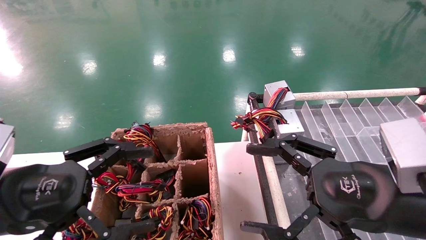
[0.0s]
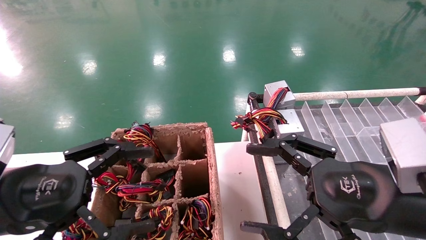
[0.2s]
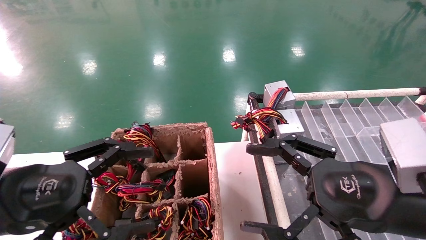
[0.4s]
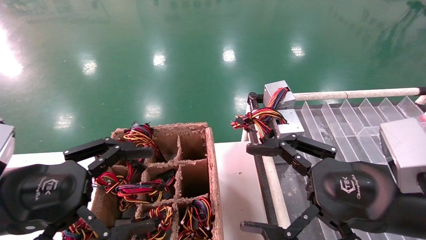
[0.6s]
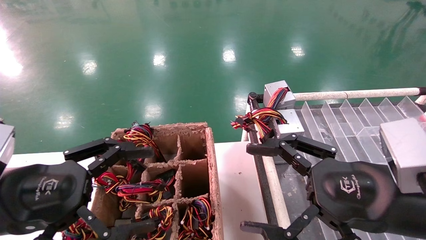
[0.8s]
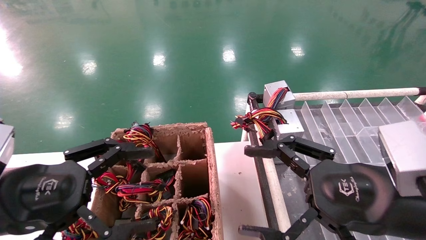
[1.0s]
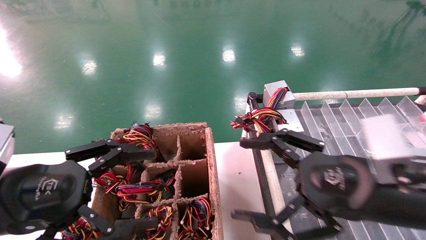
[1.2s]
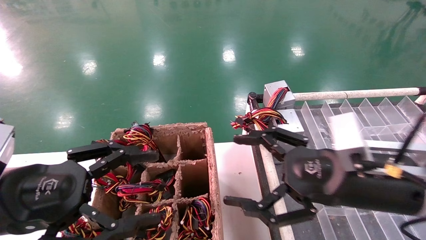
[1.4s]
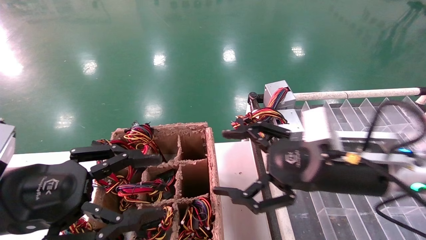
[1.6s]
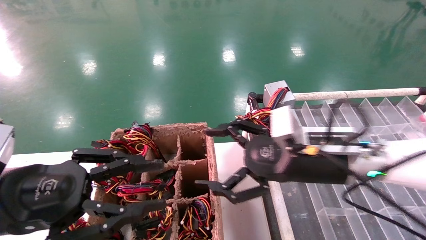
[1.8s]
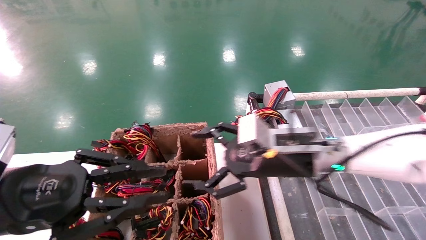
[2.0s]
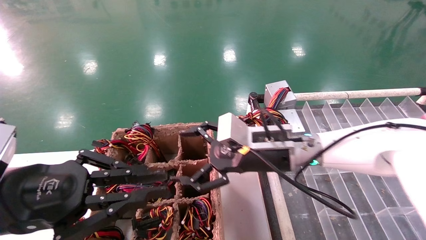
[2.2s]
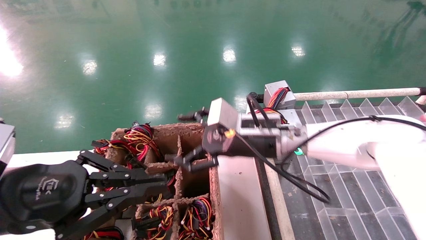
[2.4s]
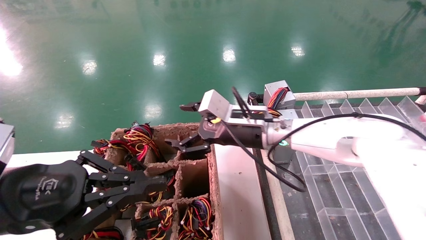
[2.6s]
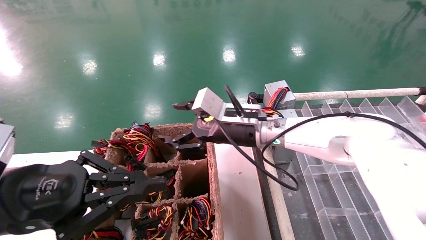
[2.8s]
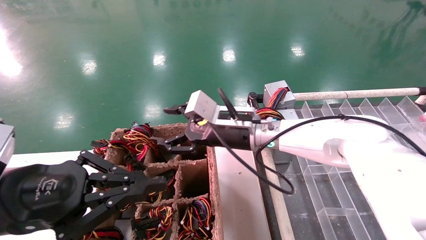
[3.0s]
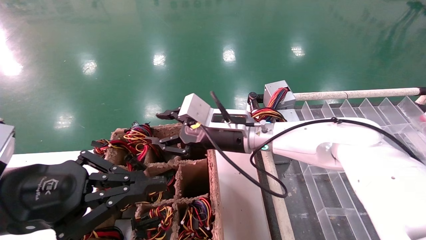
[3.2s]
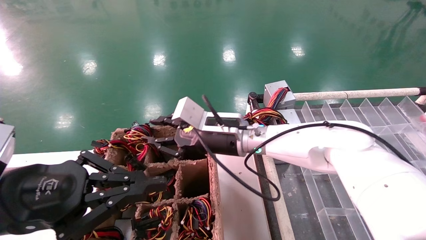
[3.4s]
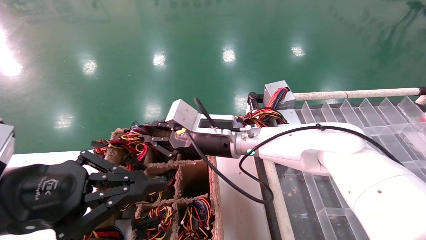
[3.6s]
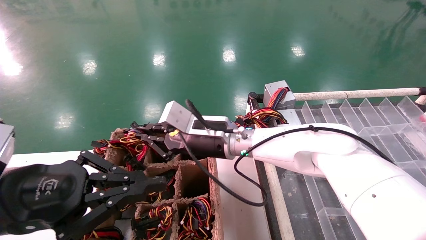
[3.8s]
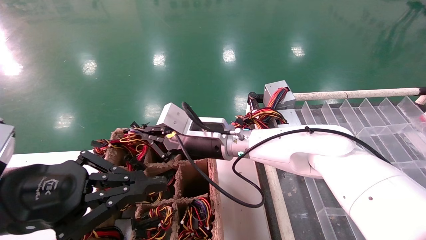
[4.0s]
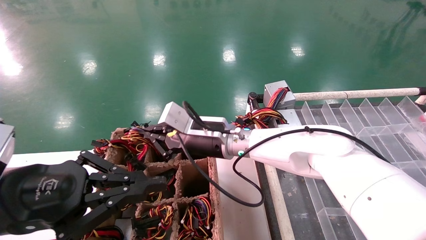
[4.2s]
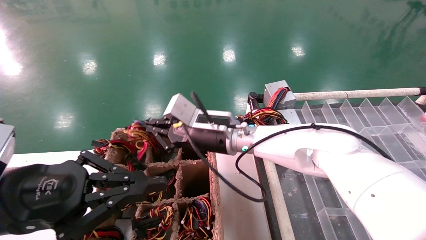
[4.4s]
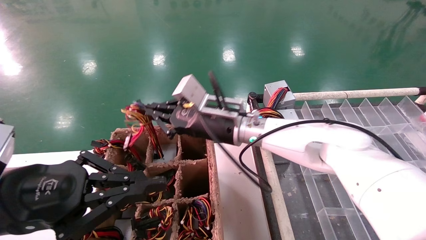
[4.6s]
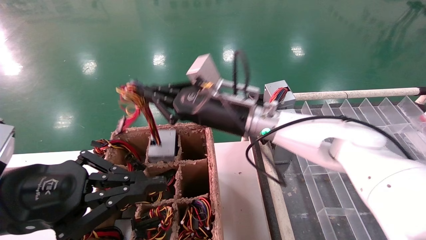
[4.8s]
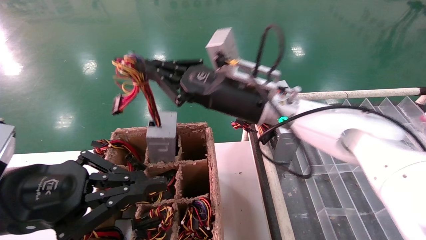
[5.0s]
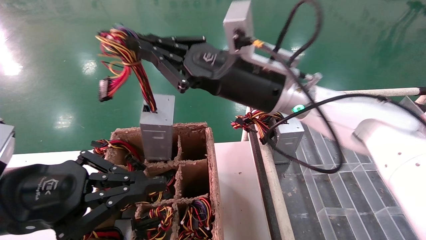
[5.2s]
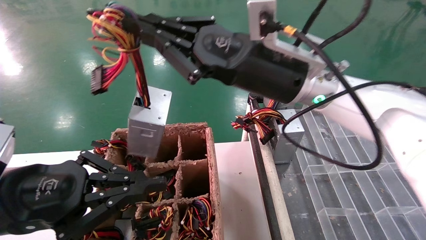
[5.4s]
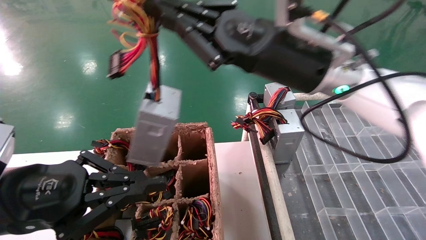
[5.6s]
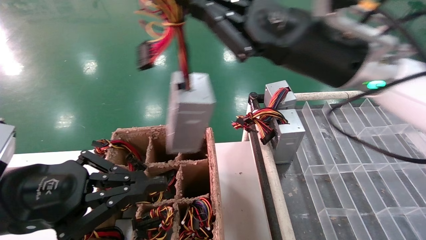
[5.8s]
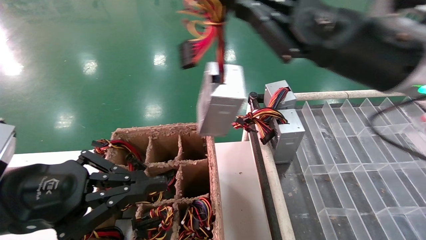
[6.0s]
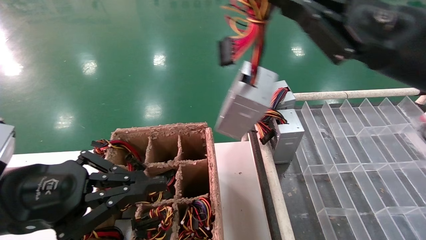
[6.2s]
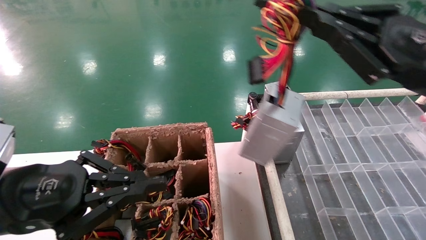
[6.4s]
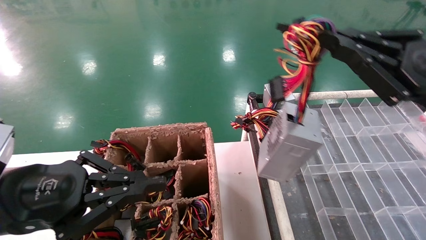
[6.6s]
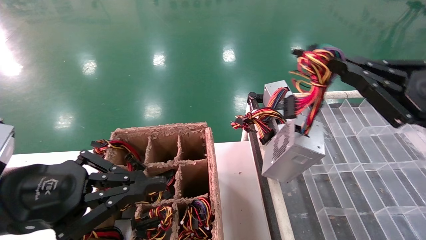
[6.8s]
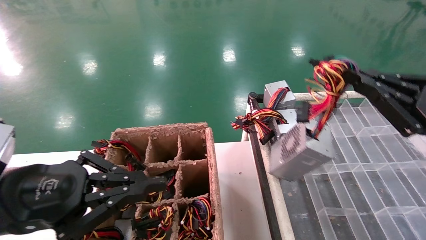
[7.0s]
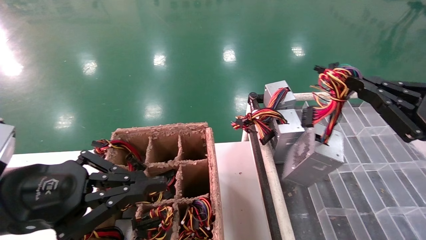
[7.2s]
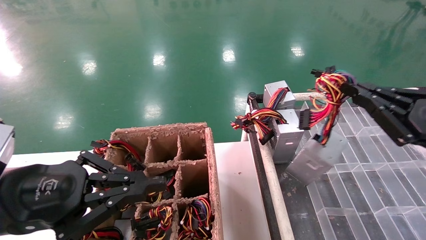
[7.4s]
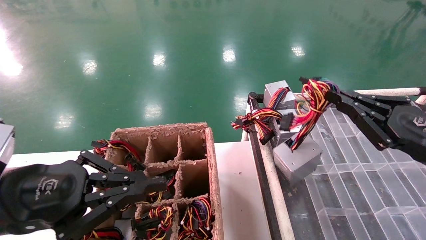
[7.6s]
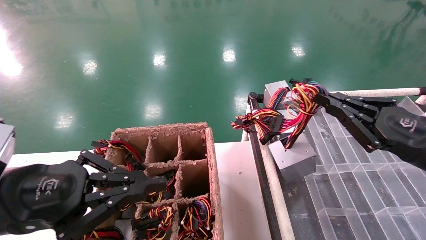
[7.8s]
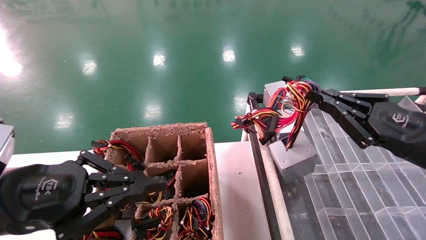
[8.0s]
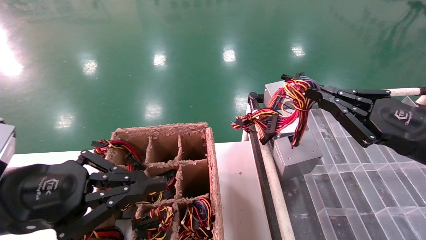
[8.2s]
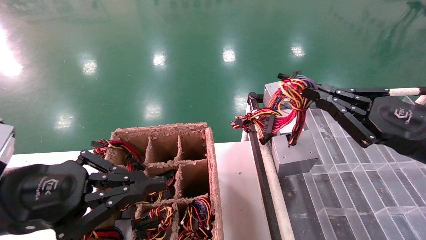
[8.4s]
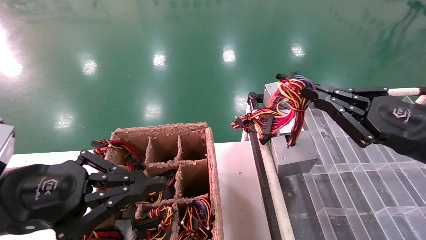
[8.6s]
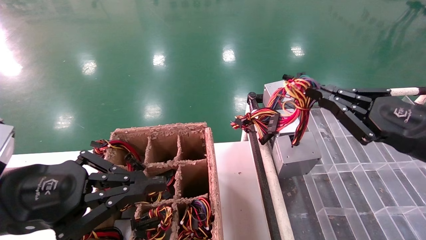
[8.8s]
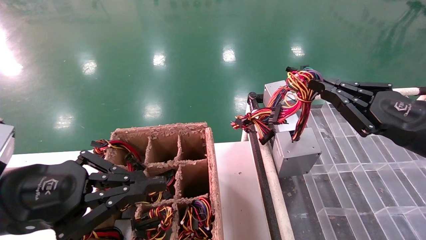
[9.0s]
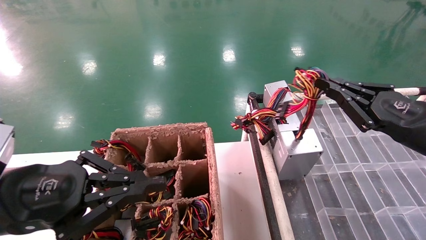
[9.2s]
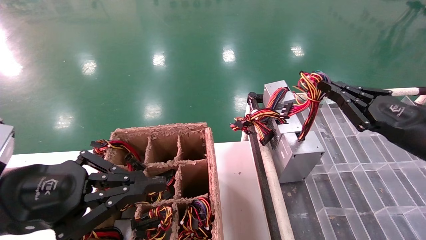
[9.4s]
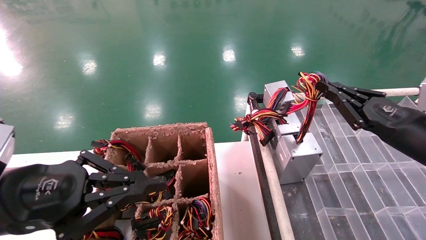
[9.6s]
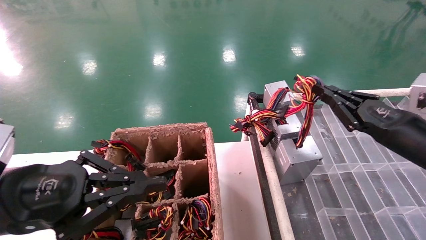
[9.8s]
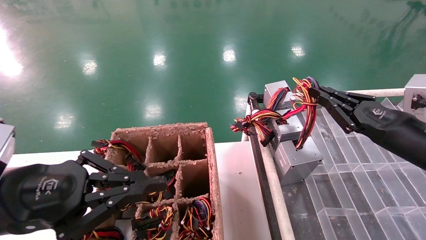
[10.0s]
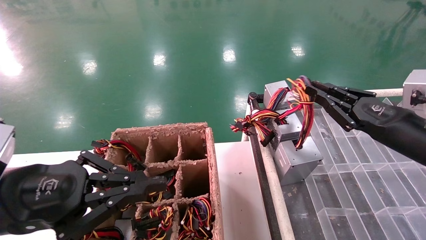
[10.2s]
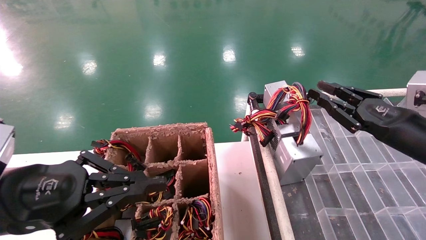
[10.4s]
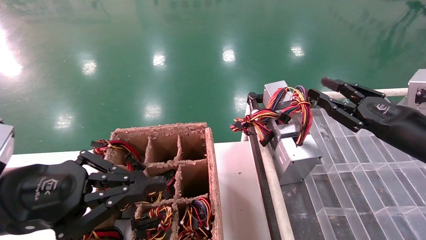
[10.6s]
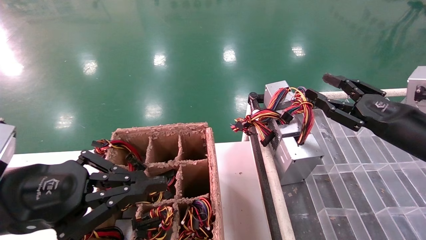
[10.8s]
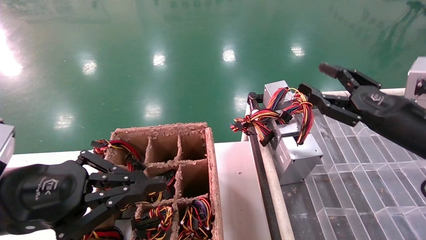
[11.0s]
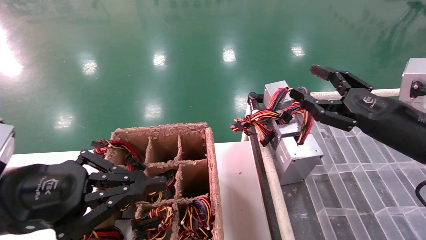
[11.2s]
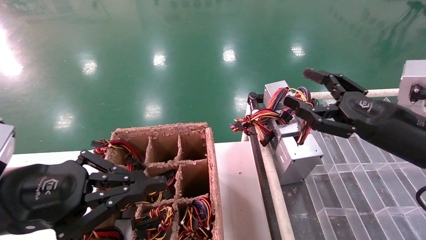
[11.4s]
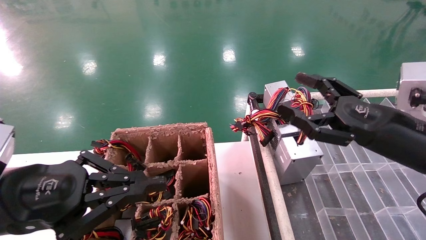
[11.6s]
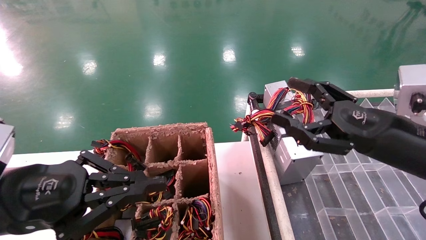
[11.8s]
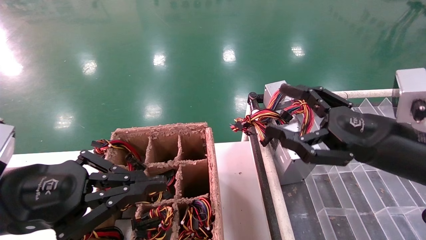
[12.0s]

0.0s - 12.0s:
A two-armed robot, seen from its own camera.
Step, 1.4s - 4.0s: Grab the main unit power supply from the containment box.
Step, 4.2s - 10.4s: Place the main unit power supply in the designated area.
0.0s - 1.6s: The right gripper shifts about 10 cm forward.
1.6s - 3.0s: The right gripper travels to the left and forward by about 20 cm, while the left gripper closes its fingers.
3.0s - 4.4s: The right gripper closes.
4.4s - 6.0s: The right gripper goes roughly 30 cm to the right, upward and backward.
6.0s - 7.6s: The right gripper is displaced to the right and downward by some 20 cm.
7.6s - 9.0s: The grippers stay close to where they were, moving slightly.
9.0s - 10.4s: The right gripper travels forward by approximately 5 cm.
10.4s - 12.0s: The right gripper shifts roughly 10 cm to the left and backward, and opens its fingers.

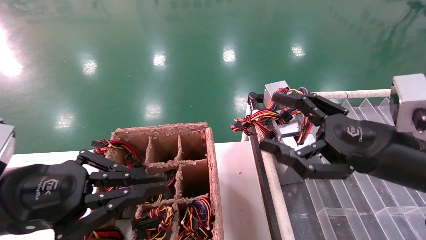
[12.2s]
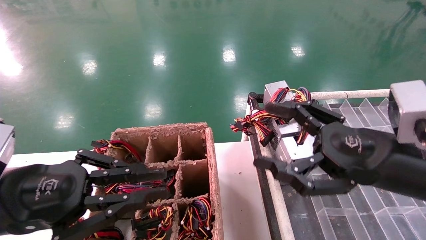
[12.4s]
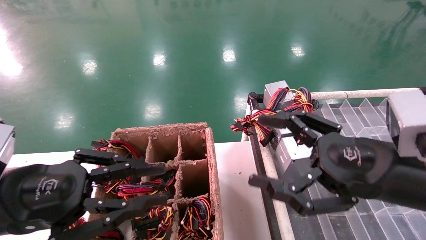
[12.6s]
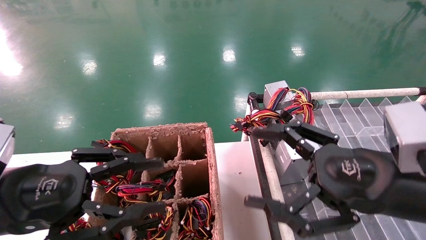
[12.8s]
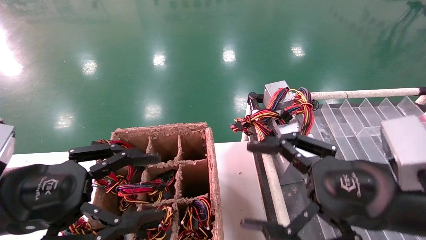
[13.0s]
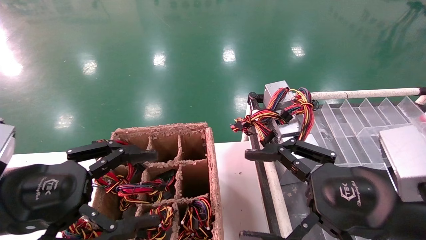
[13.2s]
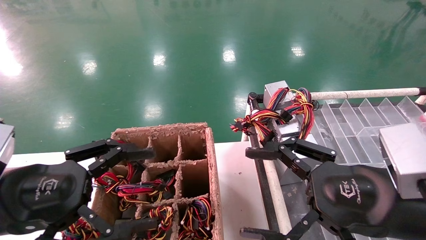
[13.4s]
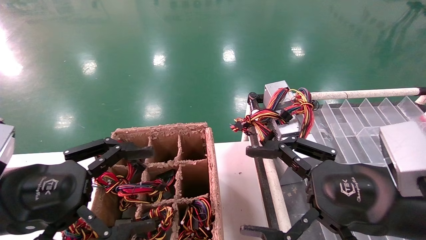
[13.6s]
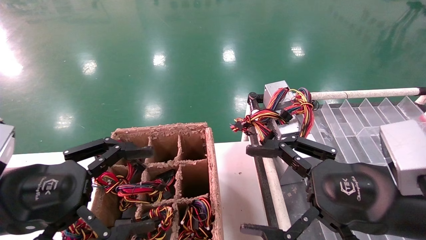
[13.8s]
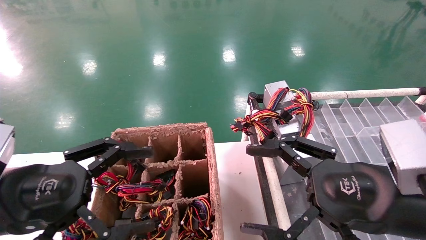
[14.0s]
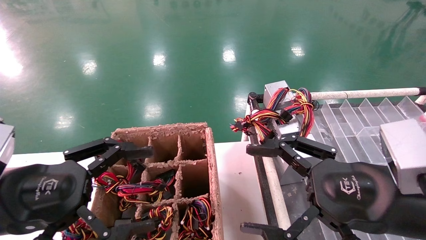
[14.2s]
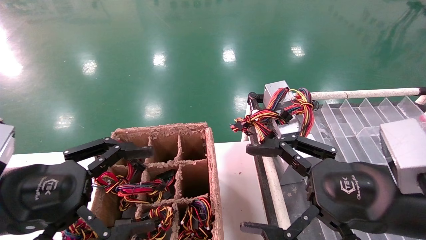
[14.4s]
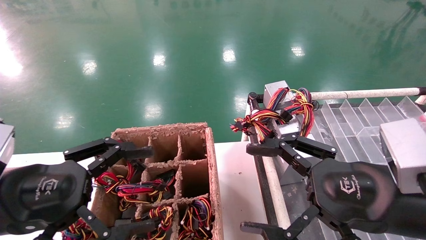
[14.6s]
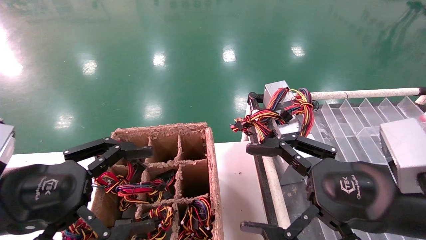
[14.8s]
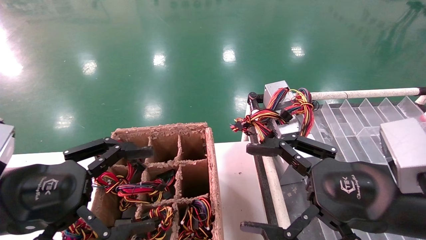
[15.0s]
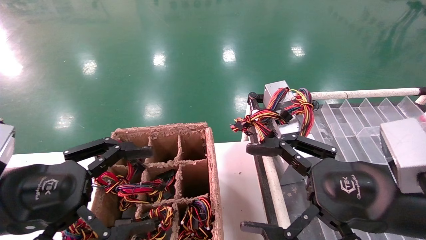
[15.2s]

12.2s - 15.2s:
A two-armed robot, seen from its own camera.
12.2s - 13.8s: The left gripper opens up. The right gripper travels backward by some 5 cm.
13.8s - 15.2s: The two grippers keep their place.
